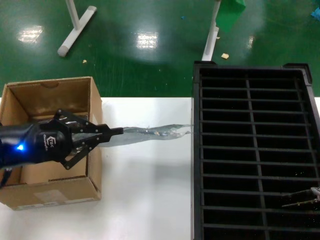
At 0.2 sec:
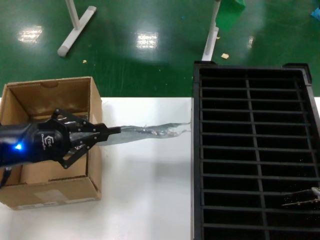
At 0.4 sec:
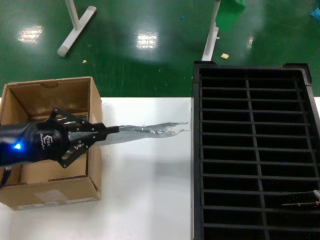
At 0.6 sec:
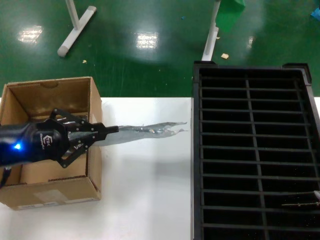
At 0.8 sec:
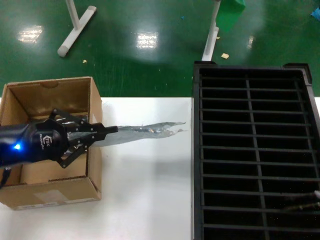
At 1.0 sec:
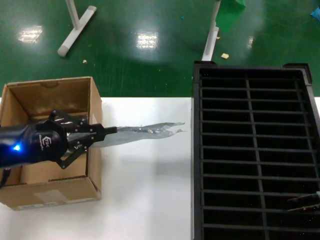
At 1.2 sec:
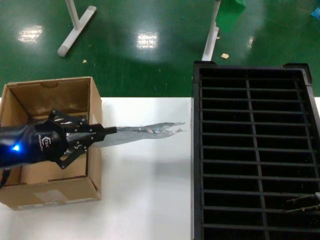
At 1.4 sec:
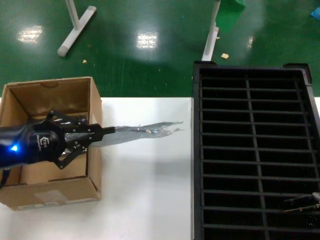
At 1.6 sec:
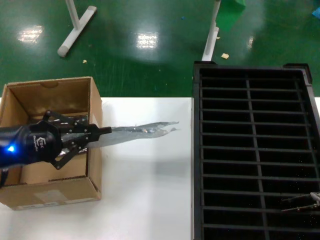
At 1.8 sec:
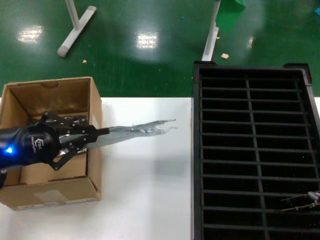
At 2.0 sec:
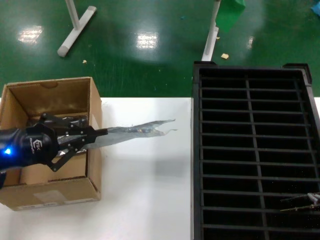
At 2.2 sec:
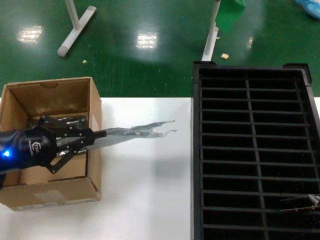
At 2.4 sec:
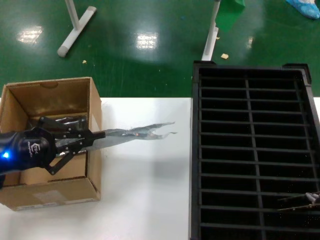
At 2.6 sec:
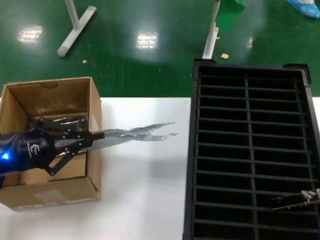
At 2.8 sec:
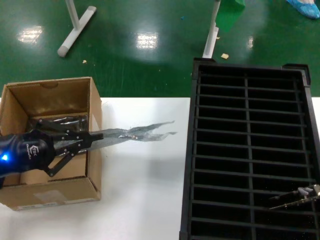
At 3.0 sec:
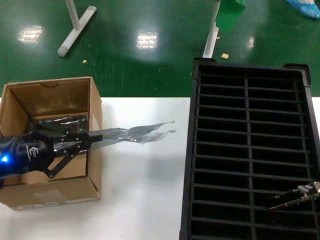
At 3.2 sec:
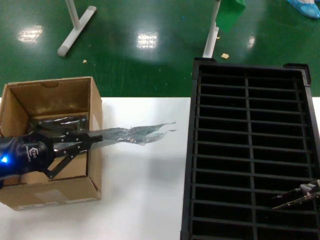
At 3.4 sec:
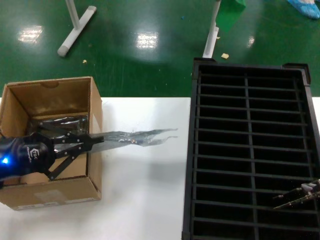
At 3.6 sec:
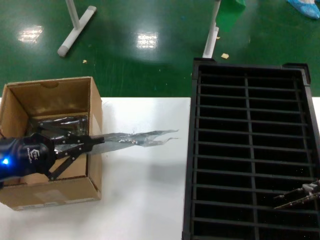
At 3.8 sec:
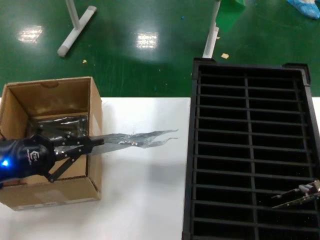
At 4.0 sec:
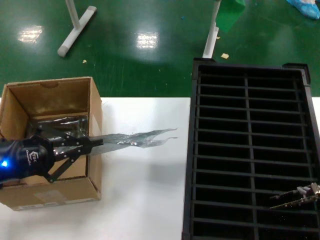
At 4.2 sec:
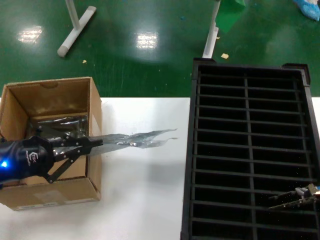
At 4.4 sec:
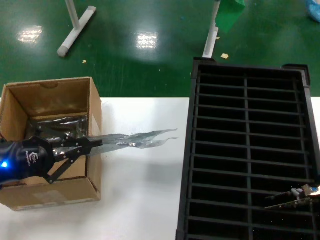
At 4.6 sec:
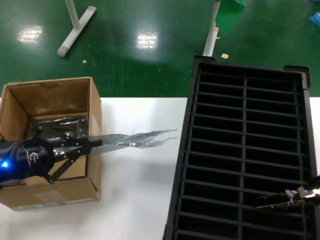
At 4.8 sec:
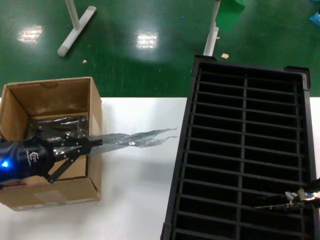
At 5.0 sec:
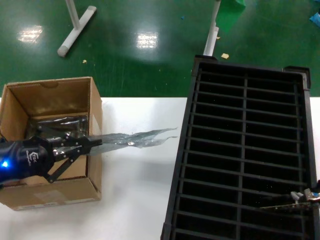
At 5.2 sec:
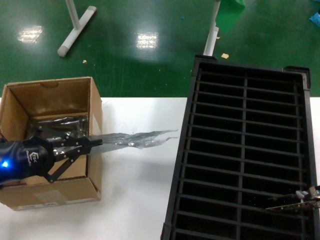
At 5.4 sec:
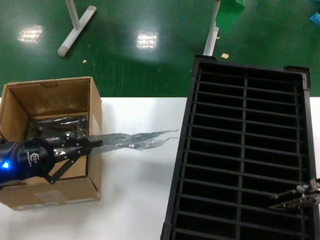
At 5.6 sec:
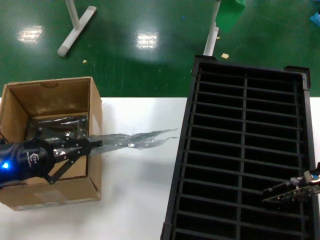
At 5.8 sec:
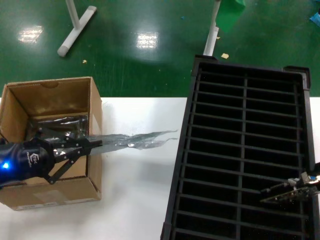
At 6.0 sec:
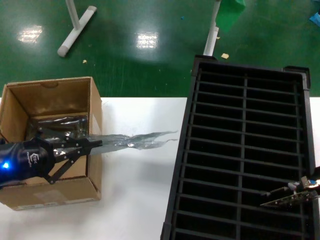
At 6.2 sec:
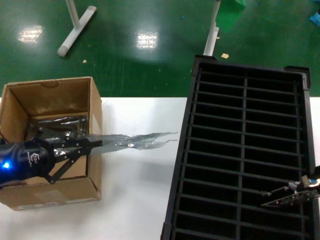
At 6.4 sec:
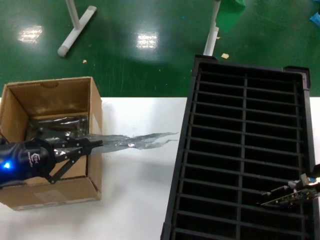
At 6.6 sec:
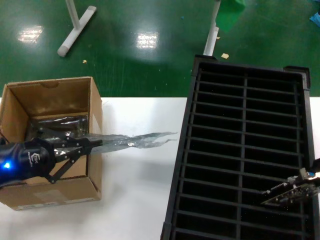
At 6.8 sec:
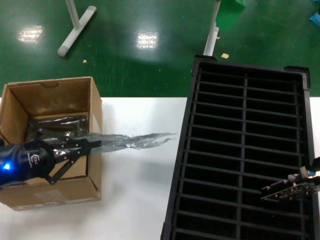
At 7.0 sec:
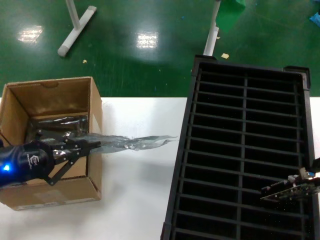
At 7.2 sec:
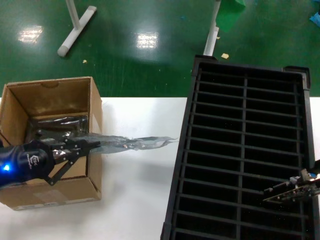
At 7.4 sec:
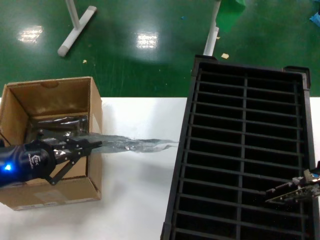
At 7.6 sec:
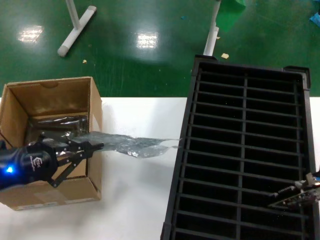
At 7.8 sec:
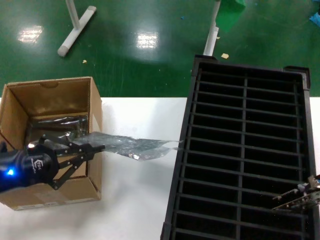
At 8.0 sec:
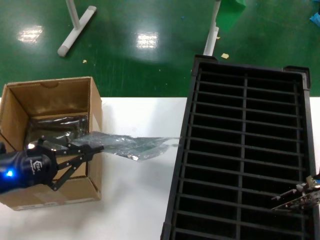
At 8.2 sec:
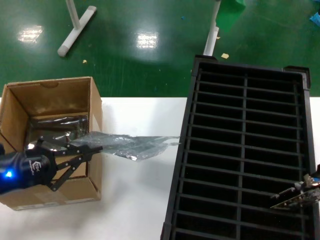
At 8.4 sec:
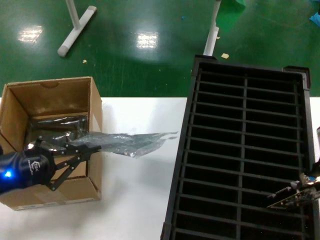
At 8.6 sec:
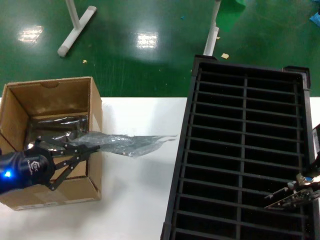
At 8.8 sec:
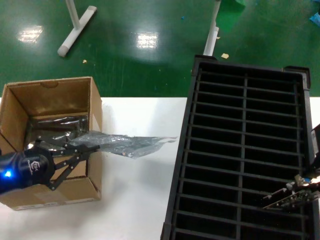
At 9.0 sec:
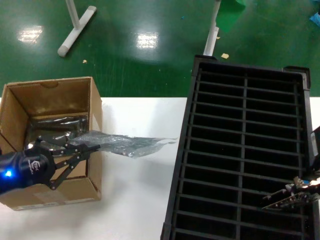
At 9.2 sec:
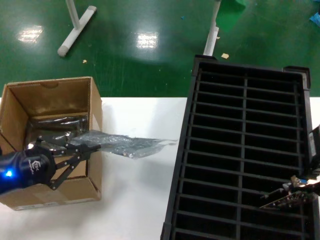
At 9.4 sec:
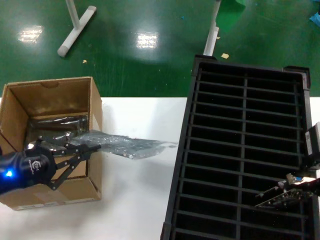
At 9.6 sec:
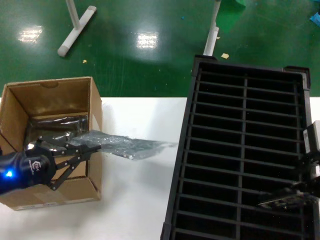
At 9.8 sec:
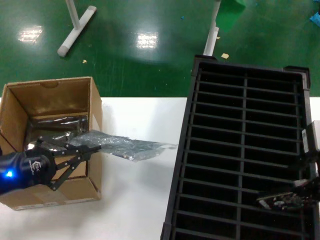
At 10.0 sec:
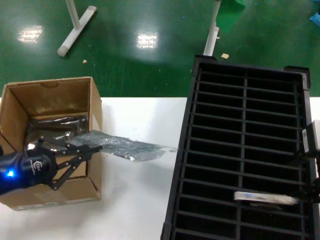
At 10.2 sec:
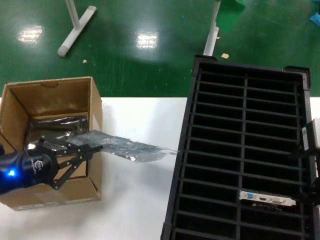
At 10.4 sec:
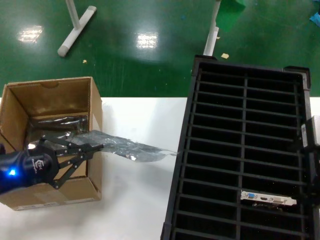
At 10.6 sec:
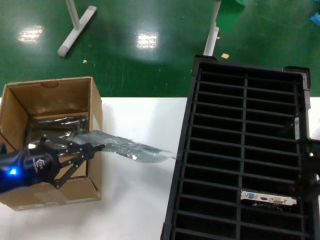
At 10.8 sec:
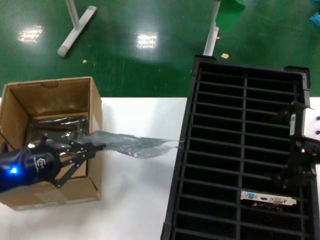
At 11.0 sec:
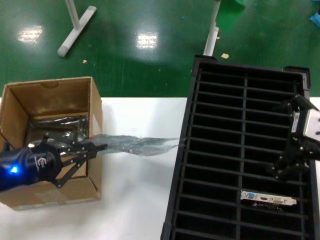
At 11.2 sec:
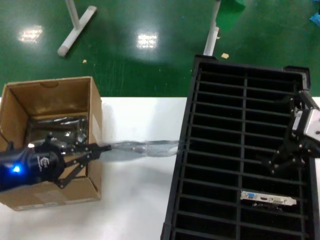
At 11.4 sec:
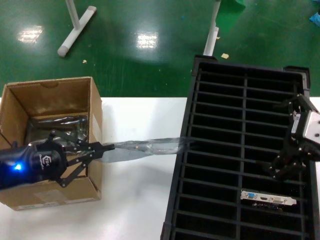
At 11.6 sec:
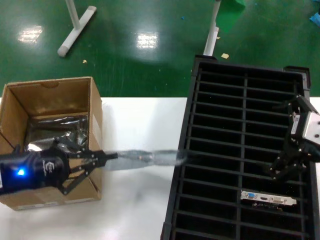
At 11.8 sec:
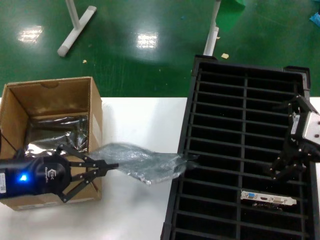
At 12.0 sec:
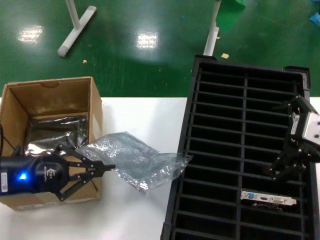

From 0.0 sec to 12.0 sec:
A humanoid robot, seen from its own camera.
Task of the whole recording: take out graphics card from box remove packaging put into black container.
Step, from 0.0 sec to 10.2 sec: Place the hard disk in the hard disk enclosure.
From 0.0 sec to 3.0 sec: The hands move only a little.
From 3.0 sec to 6.0 sec: The hands make only small movements.
From 6.0 sec to 10.4 sec: There are only small adjustments of the hands.
From 10.4 sec to 12.0 sec: The right hand goes roughly 10 cm downward.

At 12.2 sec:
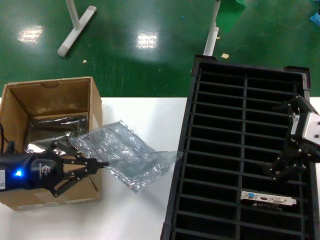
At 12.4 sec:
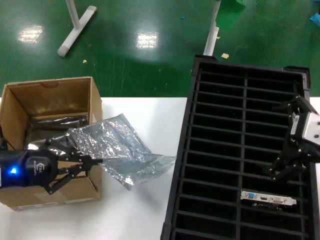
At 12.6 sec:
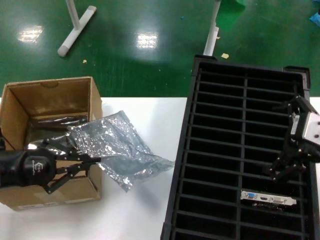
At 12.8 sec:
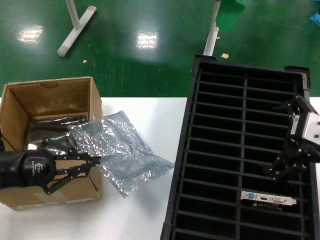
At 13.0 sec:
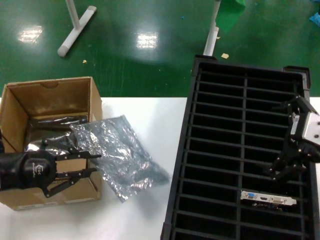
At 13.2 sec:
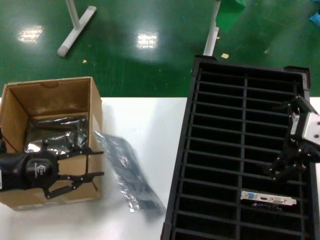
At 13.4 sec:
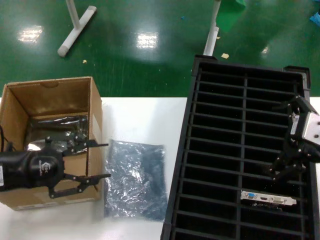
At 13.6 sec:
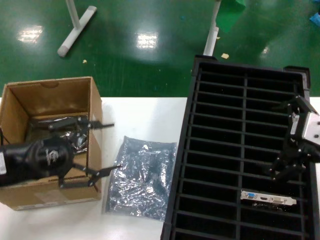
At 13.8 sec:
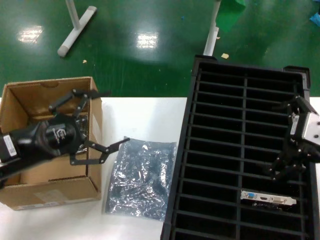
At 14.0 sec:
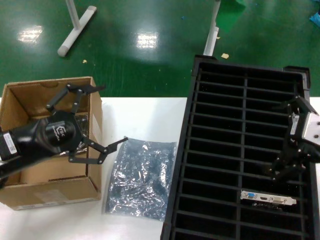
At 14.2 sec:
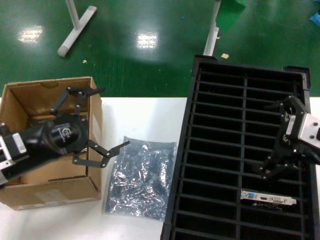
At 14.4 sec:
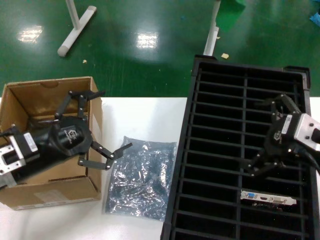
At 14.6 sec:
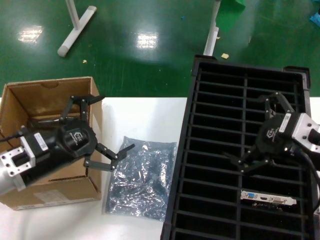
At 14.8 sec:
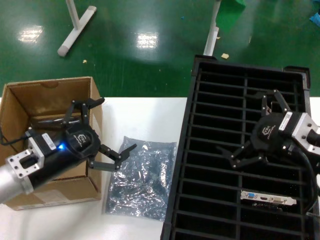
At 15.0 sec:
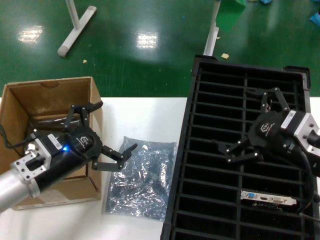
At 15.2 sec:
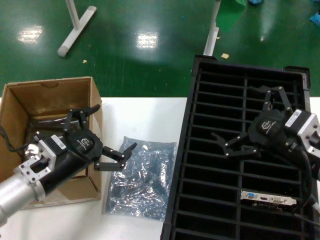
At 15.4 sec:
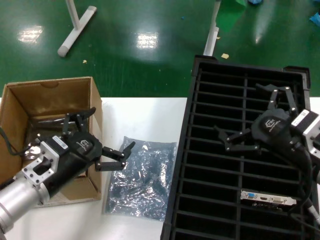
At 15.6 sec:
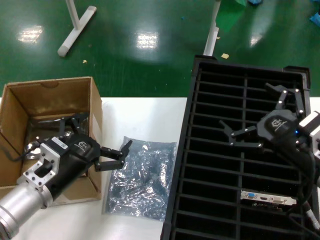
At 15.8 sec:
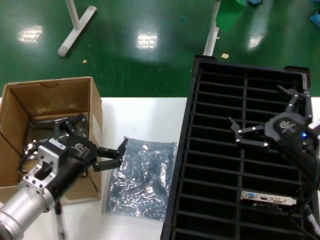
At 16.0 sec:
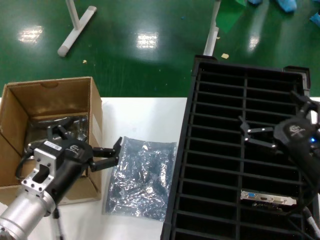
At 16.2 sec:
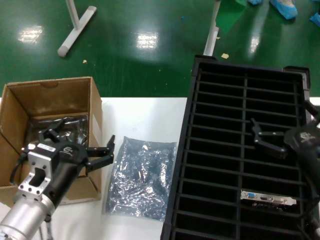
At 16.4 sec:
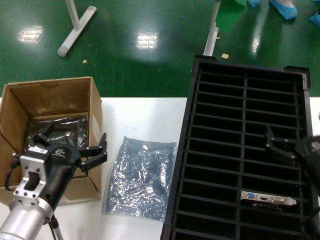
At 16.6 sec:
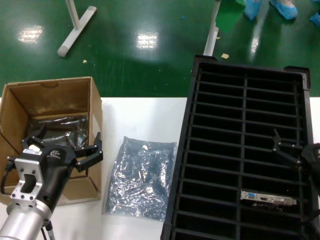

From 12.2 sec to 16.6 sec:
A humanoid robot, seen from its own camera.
Task of the whole recording: take out graphics card from box remove packaging put into black container.
From 12.2 sec to 13.6 sec: The hands make only small movements.
From 13.6 sec to 15.2 sec: The left hand is displaced to the right and downward by about 10 cm. Meanwhile the right hand goes roughly 5 cm downward.
From 15.2 sec to 16.6 sec: The left hand goes some 10 cm backward and to the right. The right hand moves downward, roughly 10 cm.
